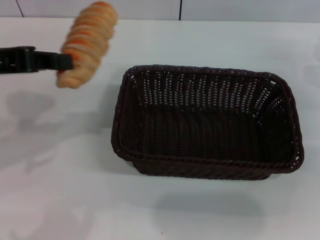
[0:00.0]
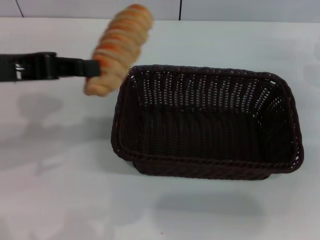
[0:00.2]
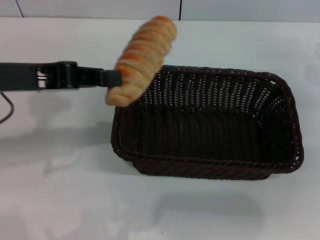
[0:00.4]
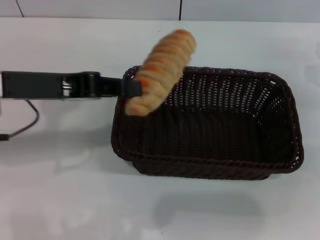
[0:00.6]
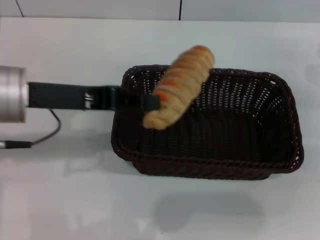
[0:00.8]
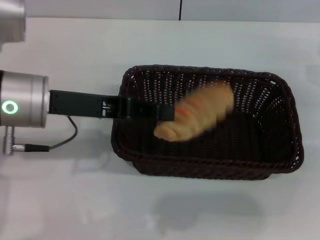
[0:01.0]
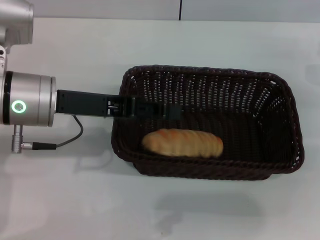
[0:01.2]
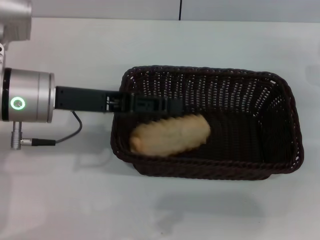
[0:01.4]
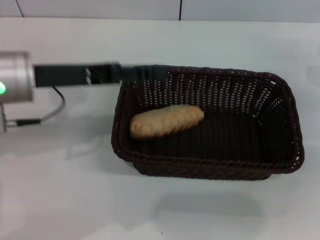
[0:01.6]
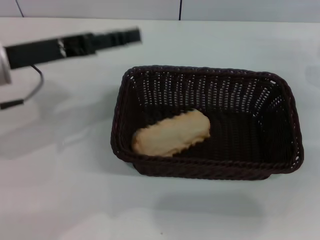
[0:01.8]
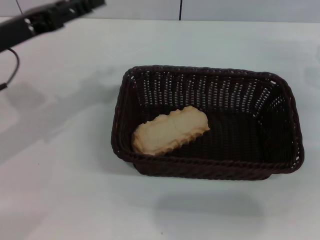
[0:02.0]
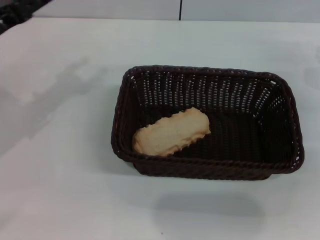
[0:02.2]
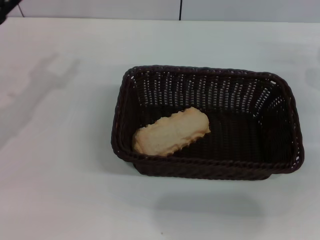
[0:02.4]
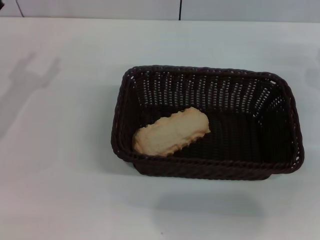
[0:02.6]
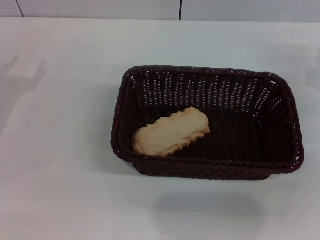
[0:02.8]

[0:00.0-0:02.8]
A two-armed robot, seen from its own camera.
Step, 0:00.0 to 0:01.6: Place the long bread into the dark basket with the left gripper.
0:00.0 to 0:01.4: The left gripper heads downward and to the right, covering roughly 10 cm, and opens up.
0:01.4 to 0:02.8: The left gripper shifts approximately 15 cm to the left and downward, and opens up.

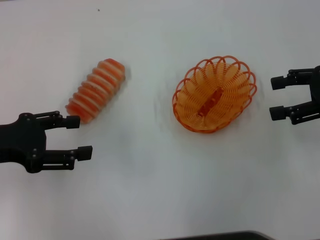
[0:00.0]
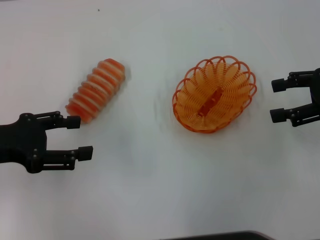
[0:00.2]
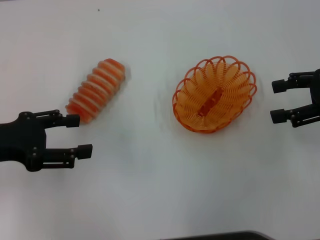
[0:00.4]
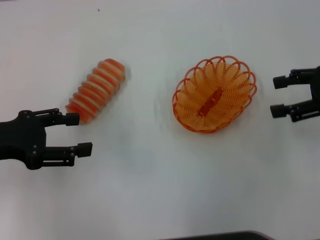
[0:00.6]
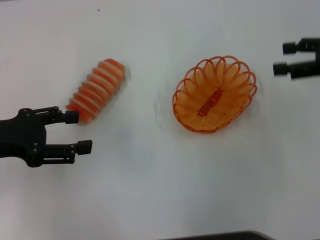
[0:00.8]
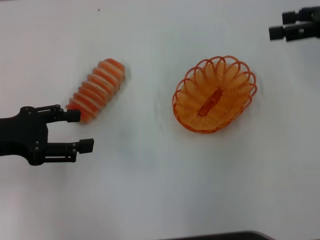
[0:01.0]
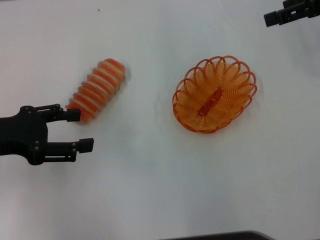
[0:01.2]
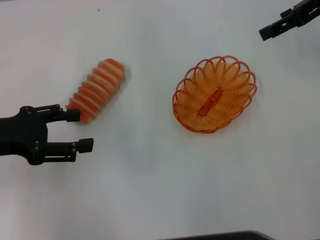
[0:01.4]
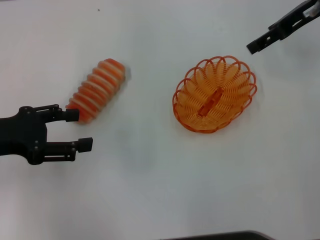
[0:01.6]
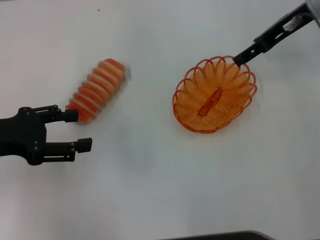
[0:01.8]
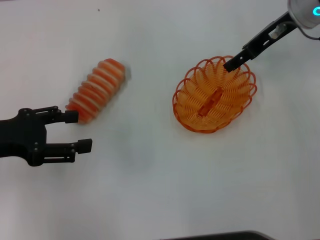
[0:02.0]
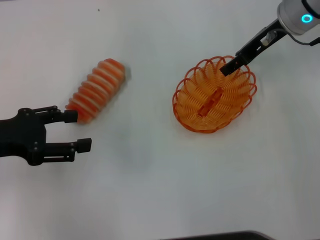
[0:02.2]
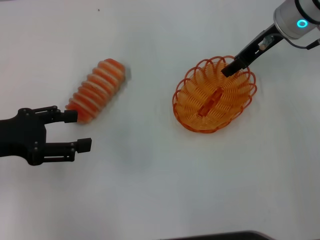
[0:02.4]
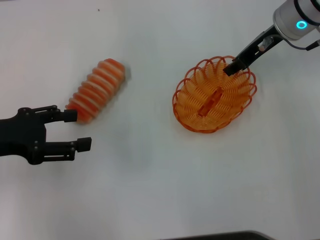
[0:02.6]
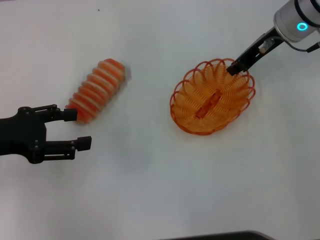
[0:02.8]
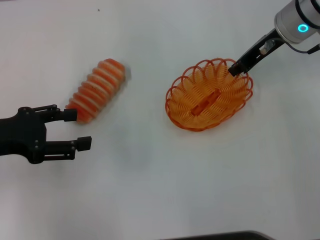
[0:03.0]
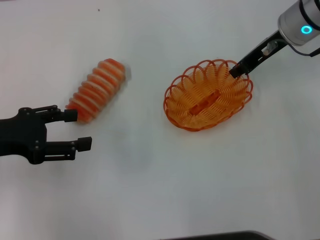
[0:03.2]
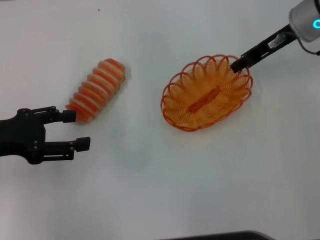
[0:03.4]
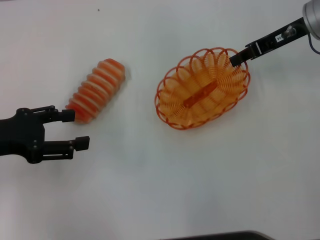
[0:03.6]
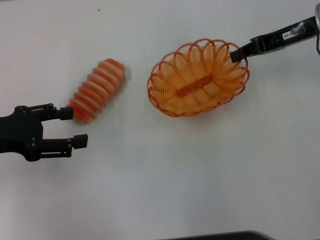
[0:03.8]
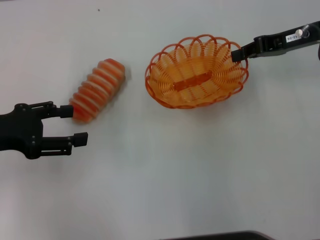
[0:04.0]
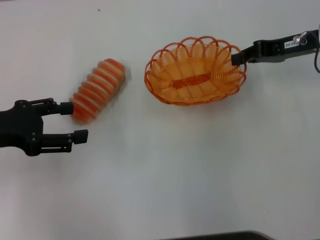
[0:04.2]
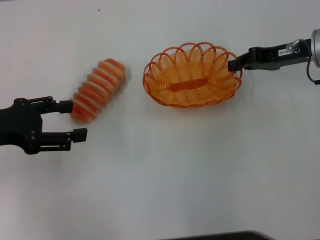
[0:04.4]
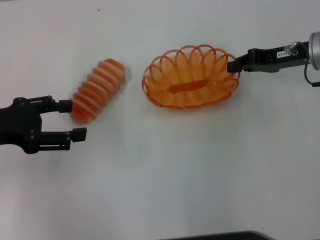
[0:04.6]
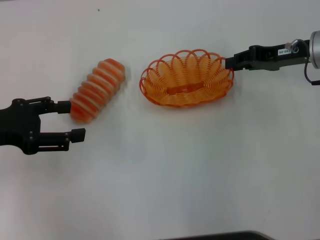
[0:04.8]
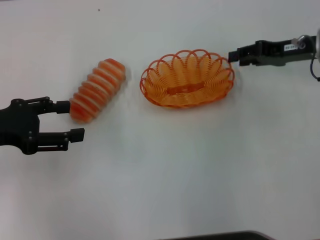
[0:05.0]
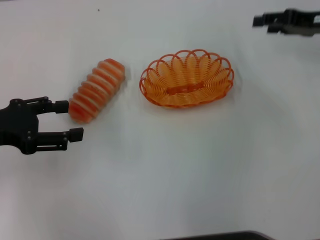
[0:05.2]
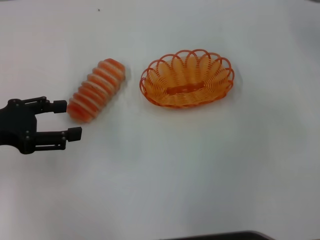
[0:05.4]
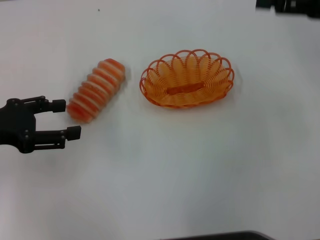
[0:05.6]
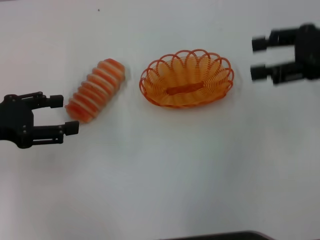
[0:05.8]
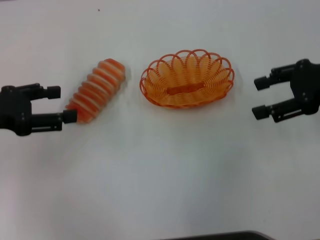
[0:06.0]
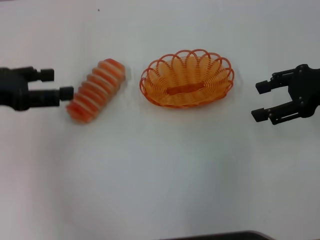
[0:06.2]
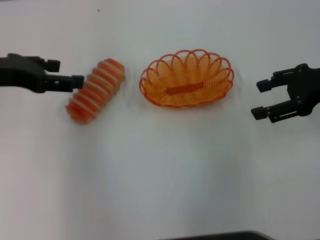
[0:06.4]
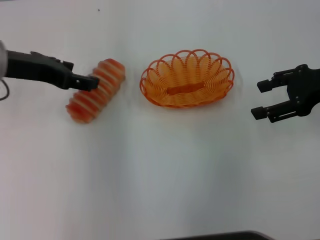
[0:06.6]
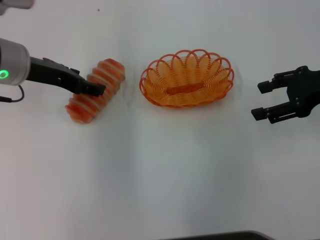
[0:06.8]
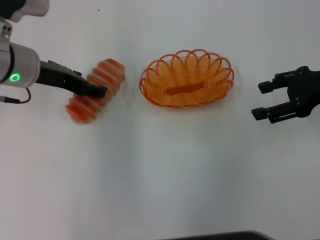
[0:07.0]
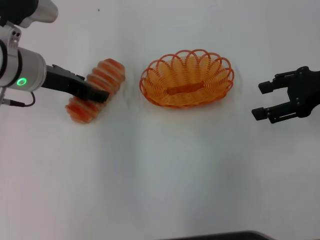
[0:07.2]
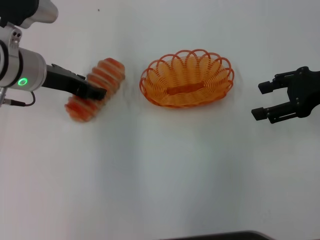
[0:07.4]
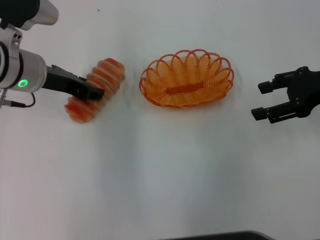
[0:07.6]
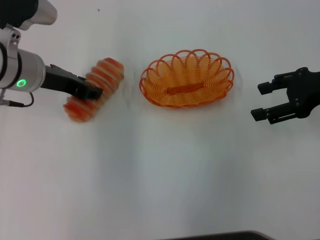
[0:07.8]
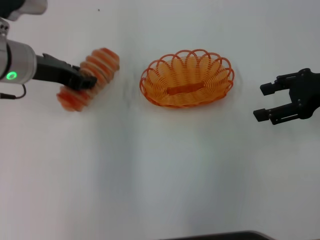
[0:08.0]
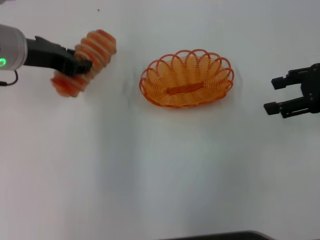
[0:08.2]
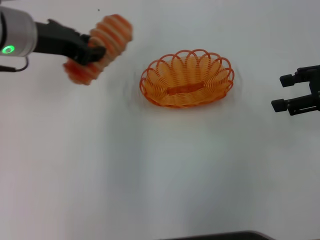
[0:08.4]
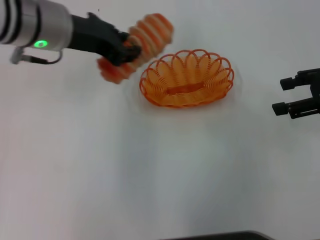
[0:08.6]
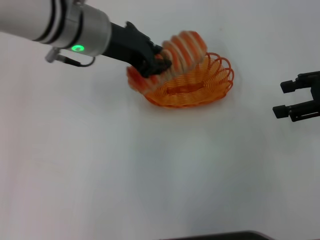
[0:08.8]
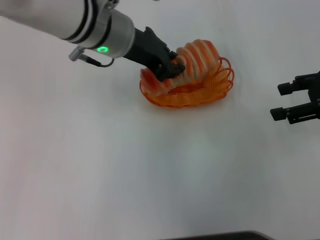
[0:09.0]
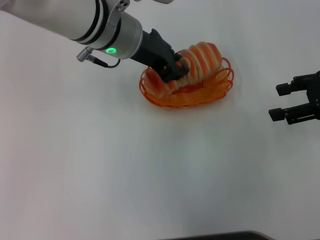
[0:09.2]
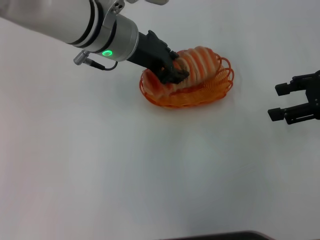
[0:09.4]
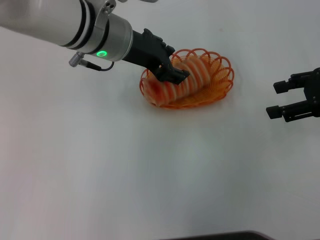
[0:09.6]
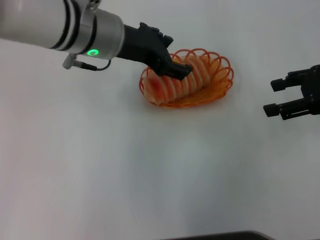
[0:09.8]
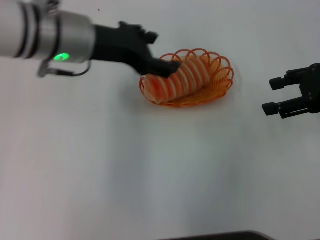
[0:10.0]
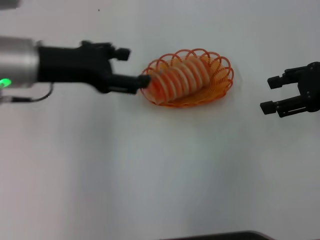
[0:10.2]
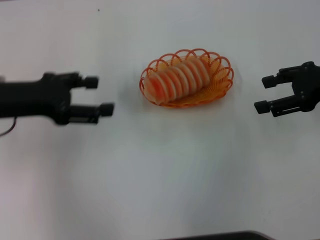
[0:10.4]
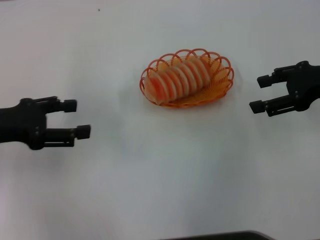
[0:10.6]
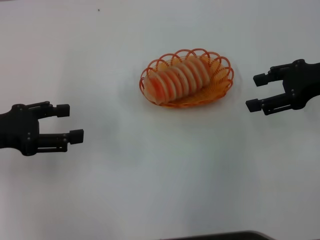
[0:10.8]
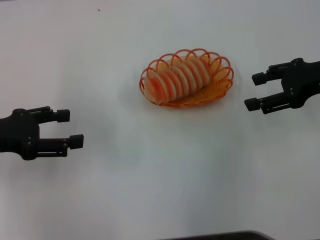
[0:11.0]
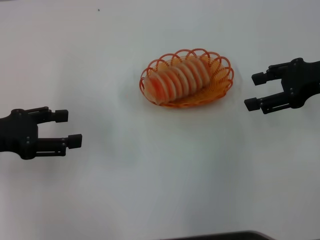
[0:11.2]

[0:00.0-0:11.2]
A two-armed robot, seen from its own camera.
Step, 0:00.0 to 0:03.2: Pick up the basket with the right gripper.
Step, 0:03.6 to 0:05.0: Place the basket in the center of view with the right gripper.
Step, 0:05.2 to 0:08.0: Pick up the long bread with the left gripper.
Step, 0:08.2 to 0:10.2: Place the long bread into the basket with the left gripper.
0:00.0 to 0:01.6: The right gripper moves forward, to the left and upward, roughly 15 cm.
0:01.6 to 0:03.2: The right gripper moves downward, approximately 5 cm, and closes.
0:03.2 to 0:04.8: The right gripper is displaced to the right by approximately 5 cm.
0:04.8 to 0:06.4: The right gripper goes some 10 cm backward and upward, and opens. Meanwhile the left gripper changes place by some 5 cm.
0:06.4 to 0:08.0: The left gripper shifts about 5 cm to the right, and closes.
0:08.0 to 0:09.6: The left gripper heads to the right, covering some 10 cm.
0:09.6 to 0:11.2: The left gripper travels to the left and backward by roughly 25 cm, and opens its fingers.

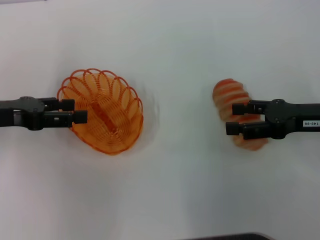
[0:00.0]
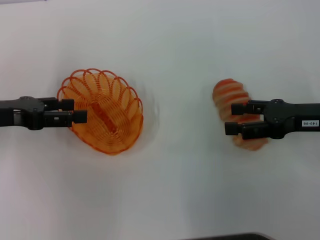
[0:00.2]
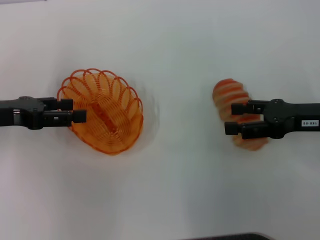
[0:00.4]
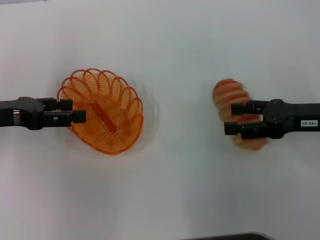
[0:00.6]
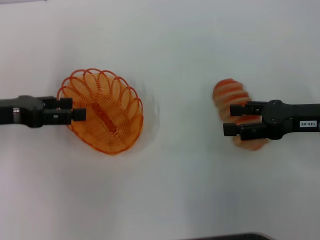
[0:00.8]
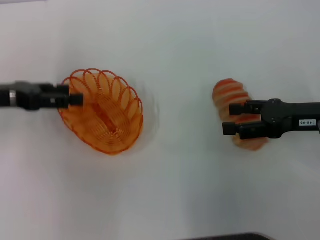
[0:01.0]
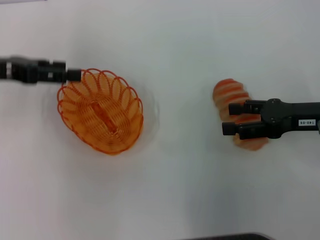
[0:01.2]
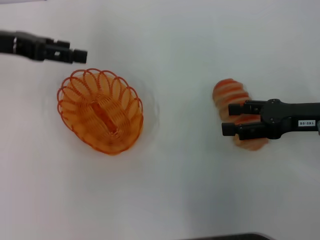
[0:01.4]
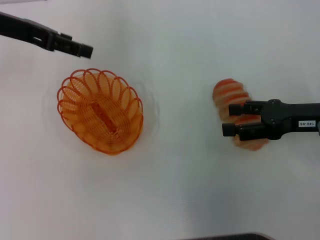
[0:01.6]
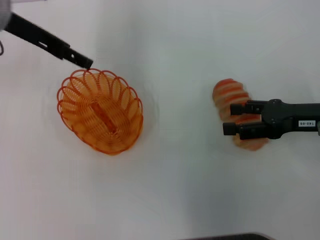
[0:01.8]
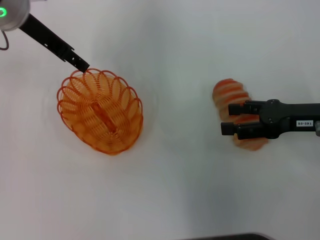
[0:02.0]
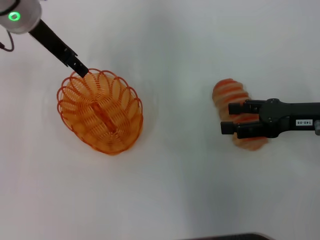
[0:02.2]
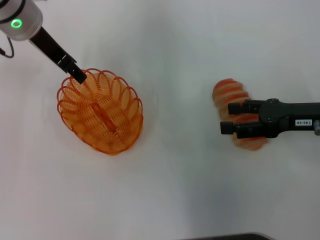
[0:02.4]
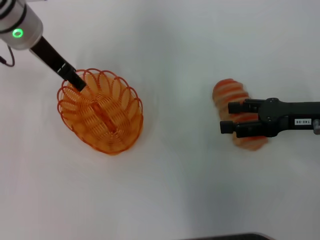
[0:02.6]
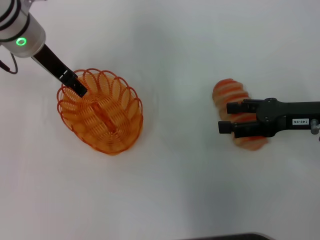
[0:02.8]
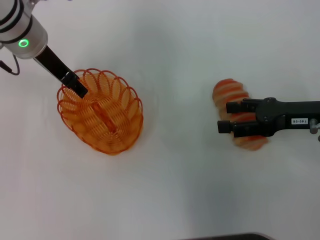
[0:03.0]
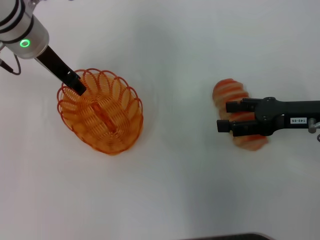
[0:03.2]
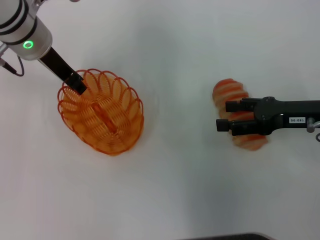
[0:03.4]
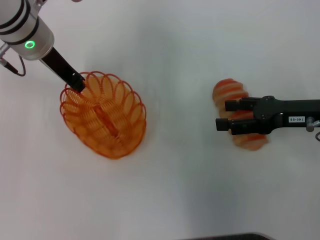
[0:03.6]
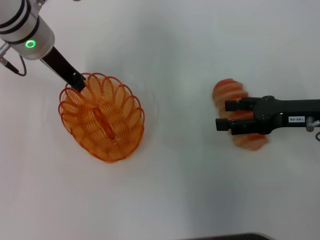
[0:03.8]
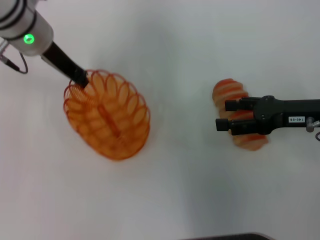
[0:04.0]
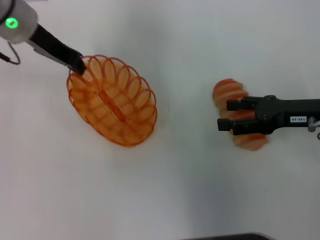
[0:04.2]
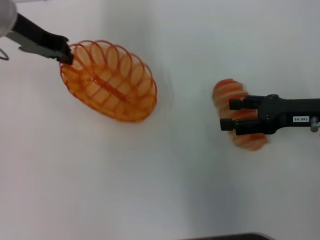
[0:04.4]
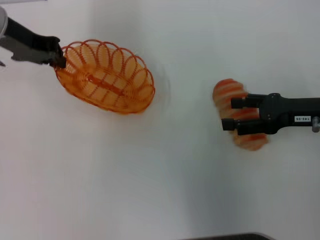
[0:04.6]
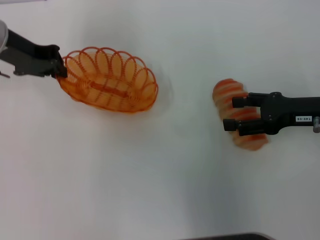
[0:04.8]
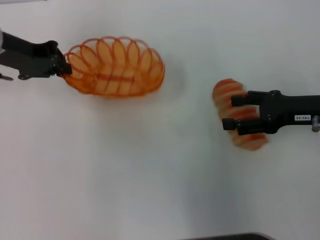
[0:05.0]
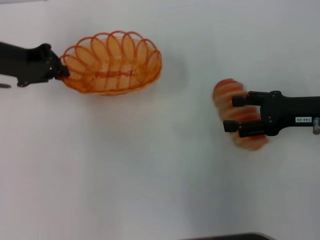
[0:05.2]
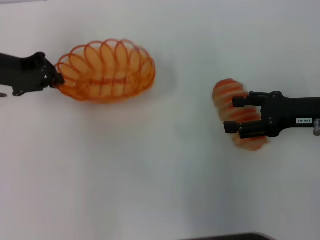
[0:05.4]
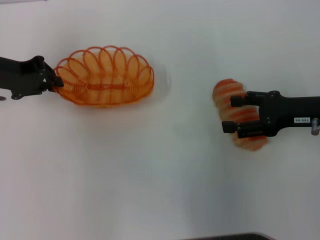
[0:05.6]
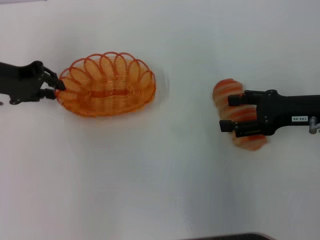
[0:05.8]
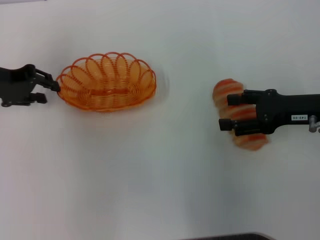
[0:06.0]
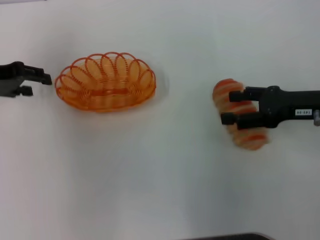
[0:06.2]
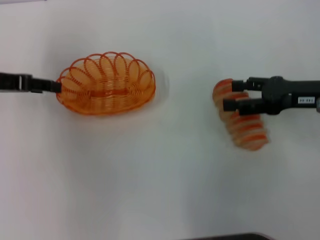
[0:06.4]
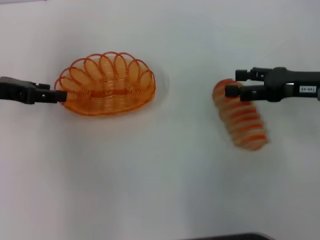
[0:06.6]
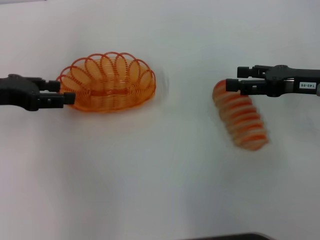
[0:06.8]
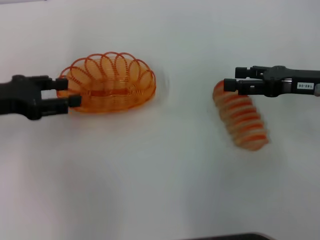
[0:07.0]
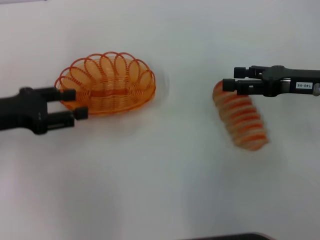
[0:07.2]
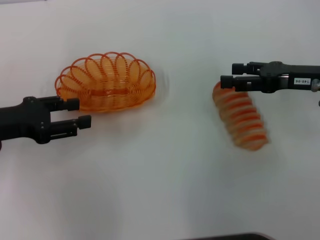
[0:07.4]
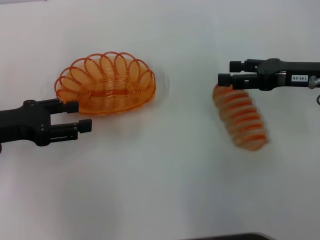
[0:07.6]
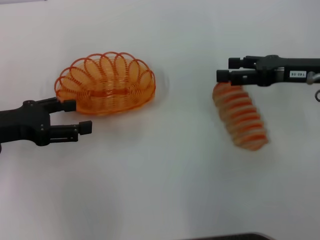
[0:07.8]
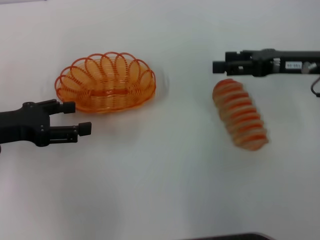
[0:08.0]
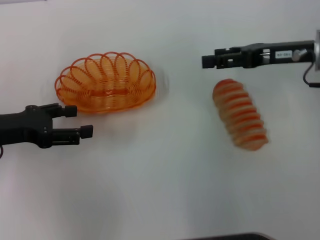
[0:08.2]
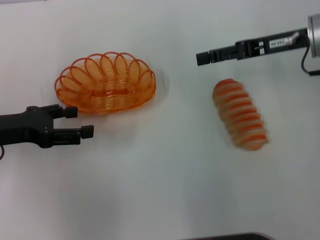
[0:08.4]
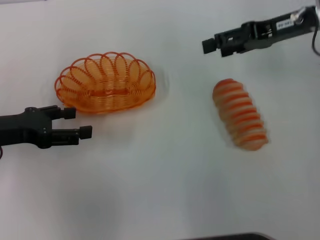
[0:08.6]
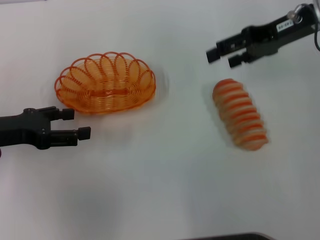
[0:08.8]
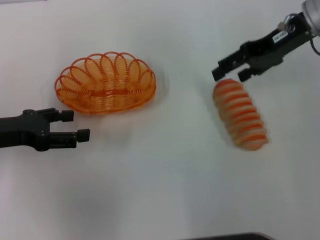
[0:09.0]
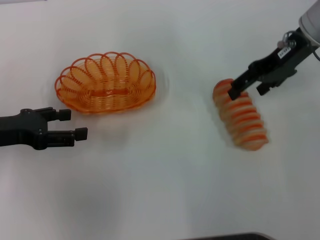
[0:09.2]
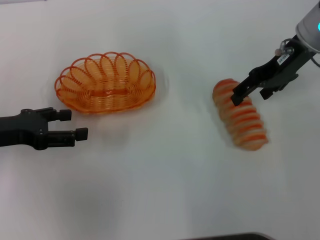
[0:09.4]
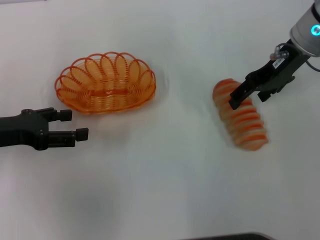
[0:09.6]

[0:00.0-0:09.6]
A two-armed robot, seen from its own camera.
Step, 0:00.0 to 0:04.0: Pick up the basket with the left gripper.
Step, 0:04.2 to 0:07.2: Place the basket in the center of view with the left gripper.
0:00.0 to 0:01.6: The left gripper travels forward and upward by approximately 15 cm.
0:01.6 to 0:03.2: The left gripper travels to the right by roughly 10 cm.
0:03.2 to 0:04.8: The left gripper shifts approximately 5 cm to the left, and closes.
0:04.8 to 0:06.4: The left gripper travels to the left and backward by about 10 cm, and opens up.
0:06.4 to 0:08.0: The left gripper heads backward, covering about 5 cm, and opens.
0:08.0 to 0:09.6: The right gripper travels to the left, forward and upward by about 10 cm.
